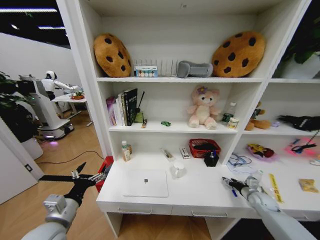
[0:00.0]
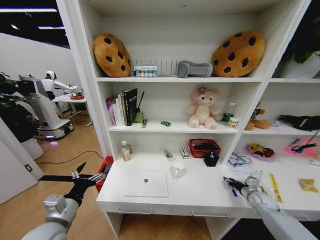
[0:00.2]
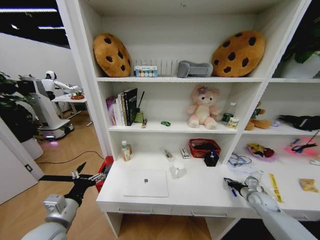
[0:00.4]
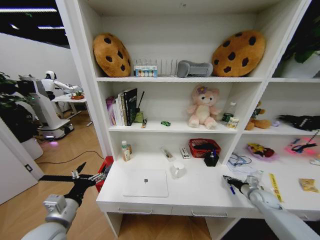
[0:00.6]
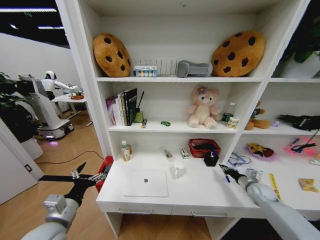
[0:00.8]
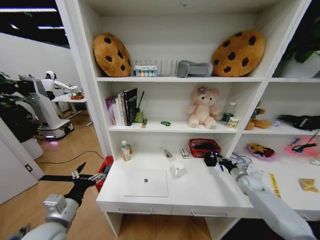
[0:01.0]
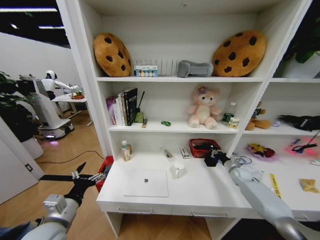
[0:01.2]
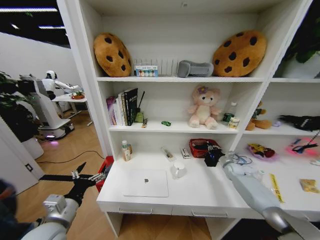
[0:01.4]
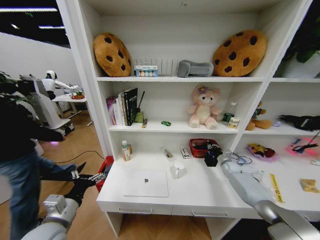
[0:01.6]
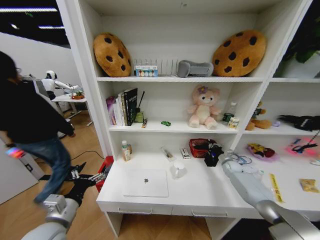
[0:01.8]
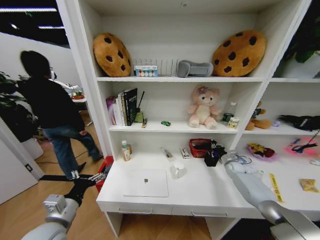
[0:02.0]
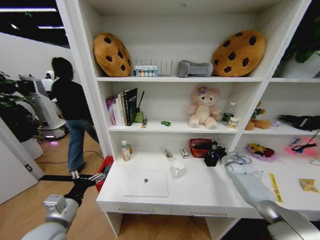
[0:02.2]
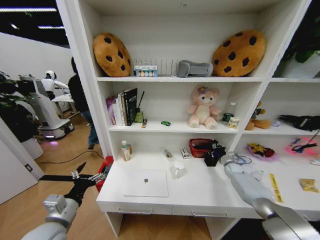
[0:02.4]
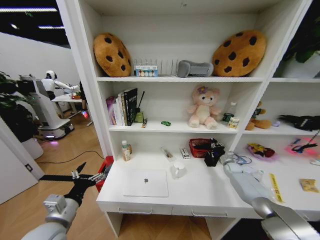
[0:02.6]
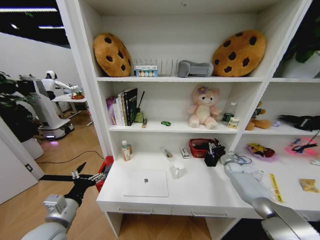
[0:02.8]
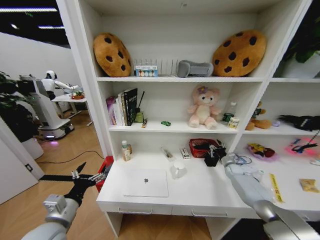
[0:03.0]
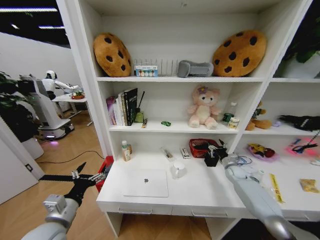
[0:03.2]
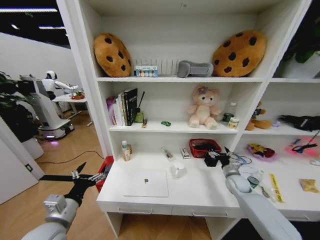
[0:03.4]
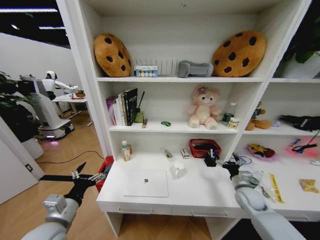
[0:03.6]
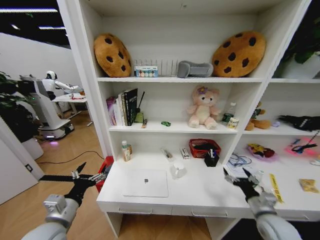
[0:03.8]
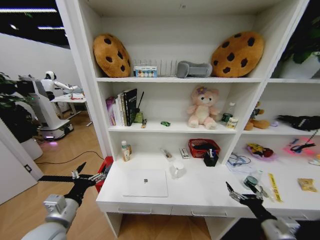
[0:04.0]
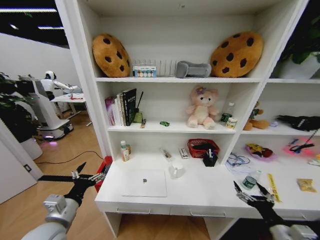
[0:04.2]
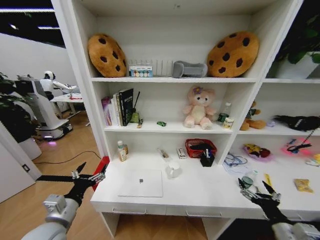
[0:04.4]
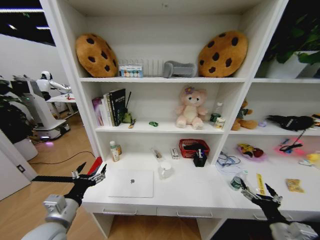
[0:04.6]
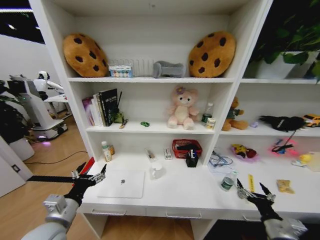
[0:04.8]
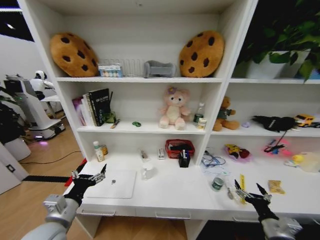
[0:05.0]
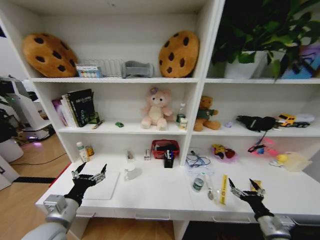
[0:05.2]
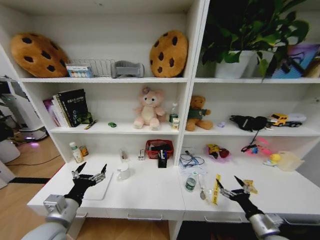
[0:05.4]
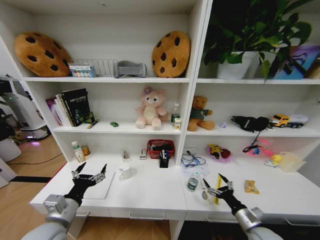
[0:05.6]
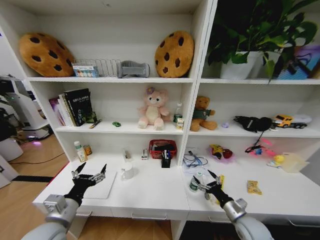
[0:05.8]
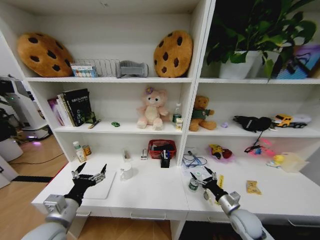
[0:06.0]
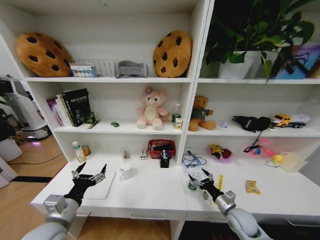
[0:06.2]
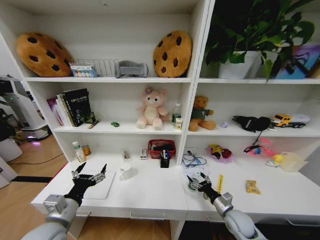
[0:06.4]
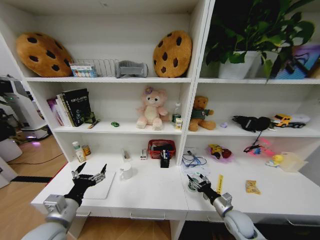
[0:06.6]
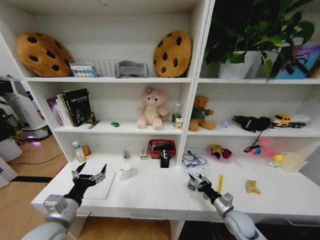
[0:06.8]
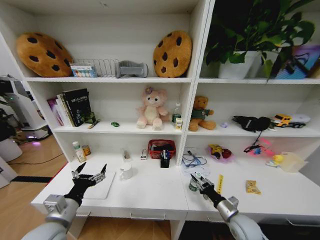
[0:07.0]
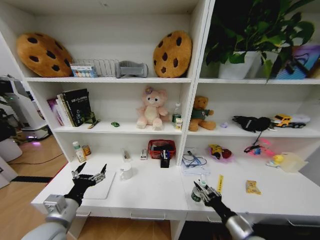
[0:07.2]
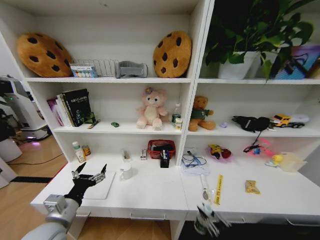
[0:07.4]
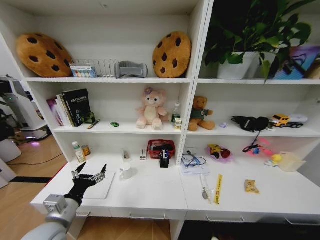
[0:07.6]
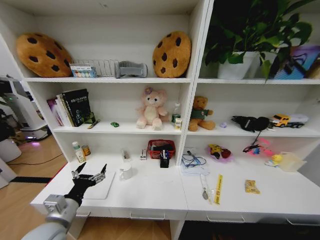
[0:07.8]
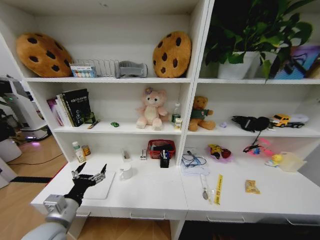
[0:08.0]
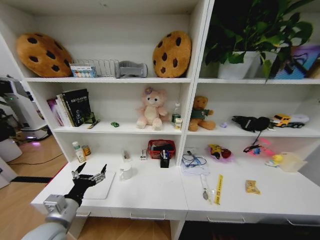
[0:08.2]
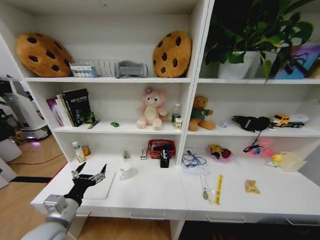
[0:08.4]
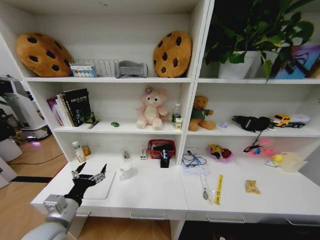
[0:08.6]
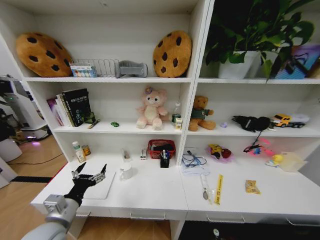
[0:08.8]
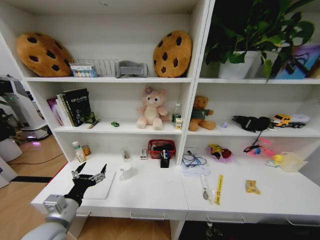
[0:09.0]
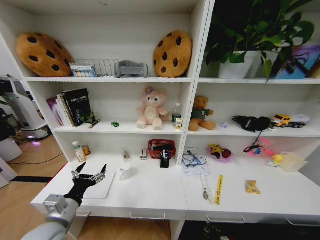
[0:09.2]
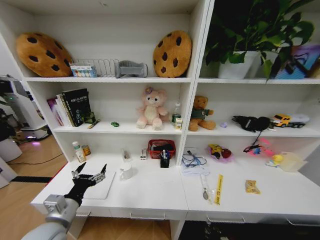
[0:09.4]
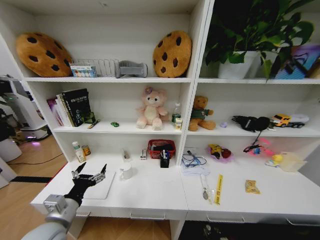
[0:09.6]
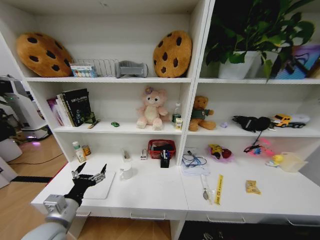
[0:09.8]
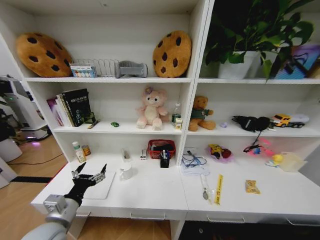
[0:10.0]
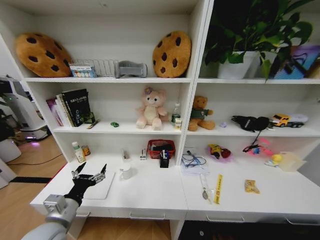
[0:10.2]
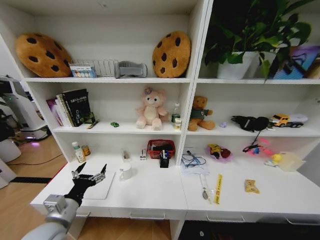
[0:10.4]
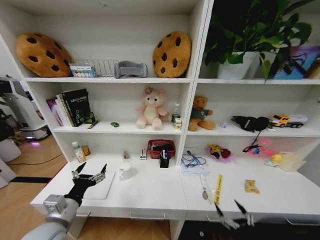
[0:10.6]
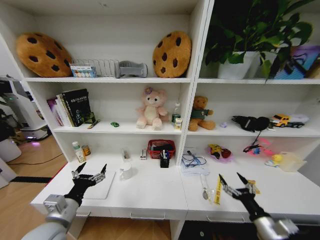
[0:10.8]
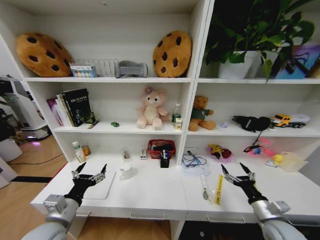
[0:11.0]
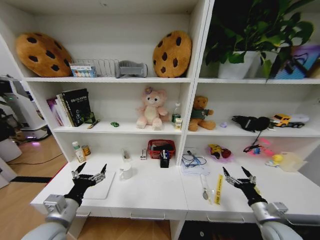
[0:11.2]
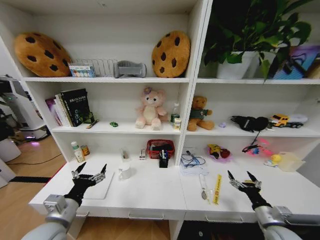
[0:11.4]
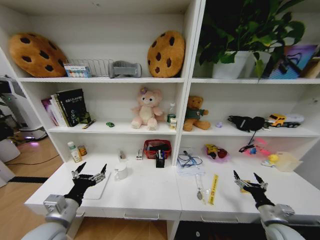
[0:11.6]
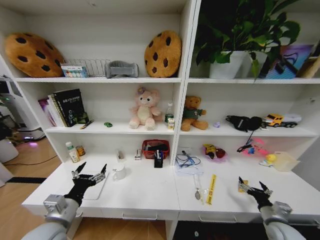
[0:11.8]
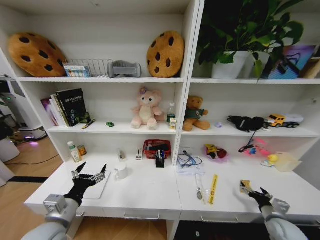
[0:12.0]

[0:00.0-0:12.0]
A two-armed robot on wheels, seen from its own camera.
Task of the whole recording: Organize the objects on the table.
0:00.0 to 0:01.6: The right gripper goes some 20 cm forward, and closes up.
0:01.6 to 0:03.0: The right gripper opens.
0:03.0 to 0:04.4: The right gripper moves backward, about 40 cm, and opens.
0:04.4 to 0:06.0: The right gripper travels forward, downward and to the left by roughly 15 cm.
0:06.0 to 0:07.6: The right gripper travels backward by some 30 cm, and closes up.
0:07.6 to 0:09.0: The right gripper moves downward and forward, approximately 40 cm.
0:09.0 to 0:10.4: The right gripper goes roughly 25 cm upward and backward, and opens up.
0:10.4 to 0:12.0: The right gripper shifts some 25 cm forward and to the right.

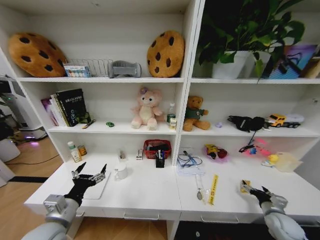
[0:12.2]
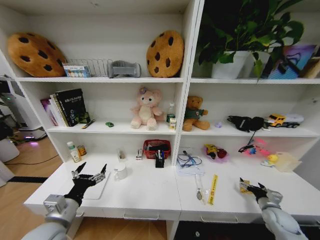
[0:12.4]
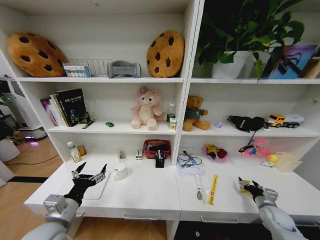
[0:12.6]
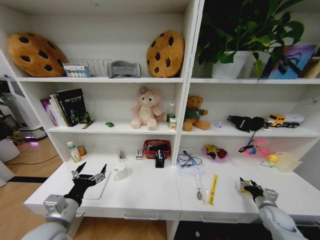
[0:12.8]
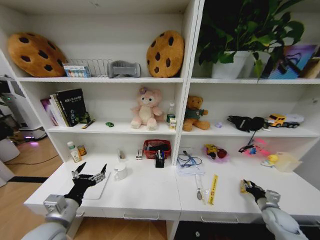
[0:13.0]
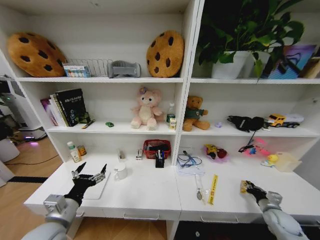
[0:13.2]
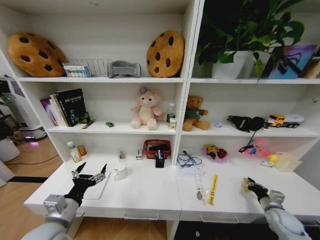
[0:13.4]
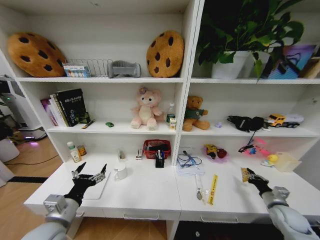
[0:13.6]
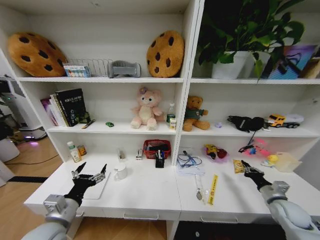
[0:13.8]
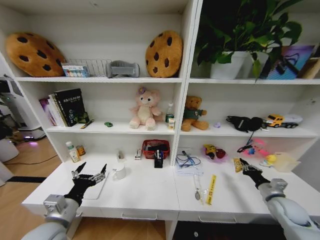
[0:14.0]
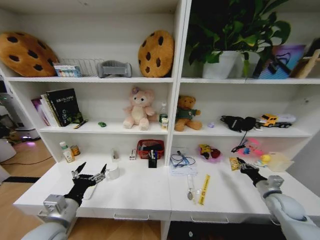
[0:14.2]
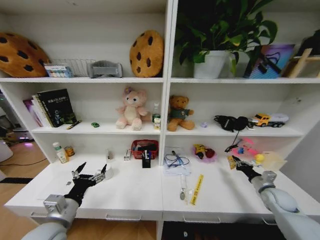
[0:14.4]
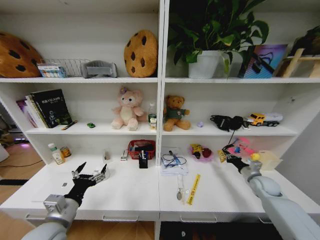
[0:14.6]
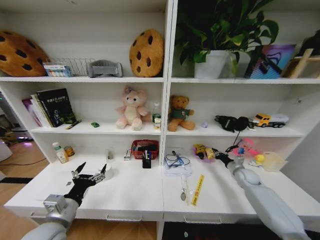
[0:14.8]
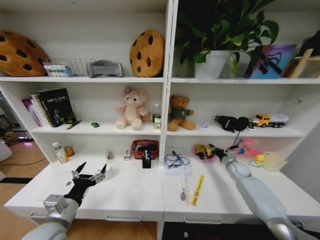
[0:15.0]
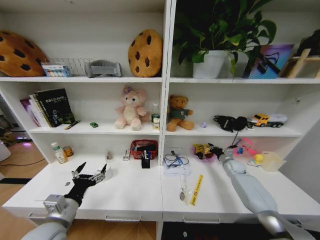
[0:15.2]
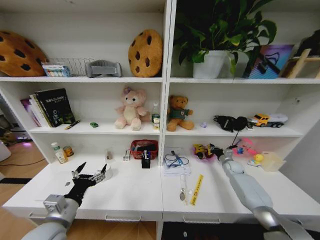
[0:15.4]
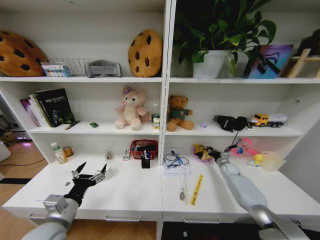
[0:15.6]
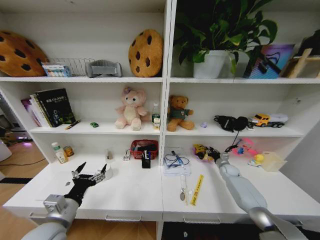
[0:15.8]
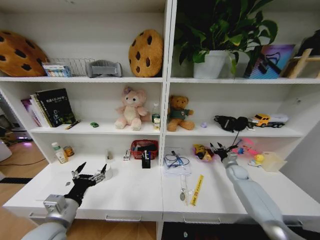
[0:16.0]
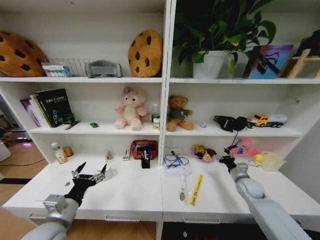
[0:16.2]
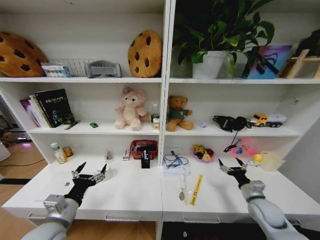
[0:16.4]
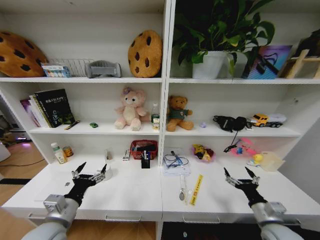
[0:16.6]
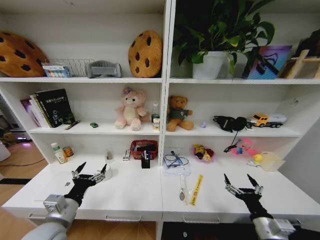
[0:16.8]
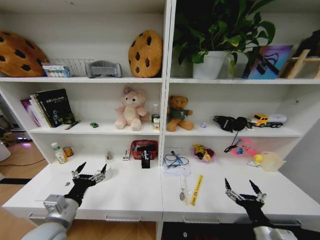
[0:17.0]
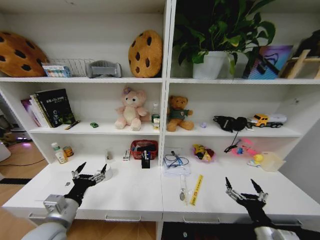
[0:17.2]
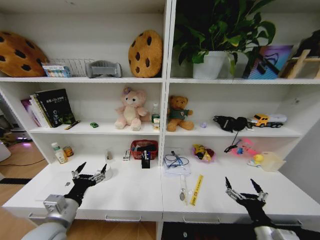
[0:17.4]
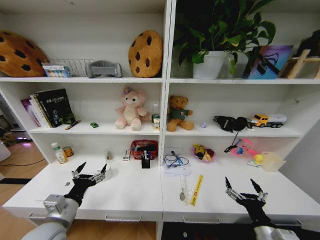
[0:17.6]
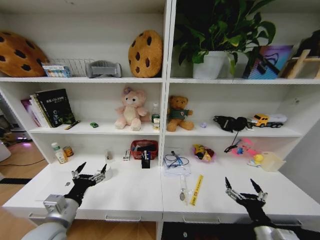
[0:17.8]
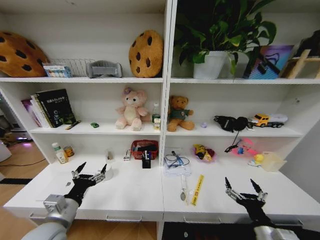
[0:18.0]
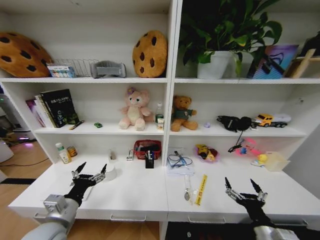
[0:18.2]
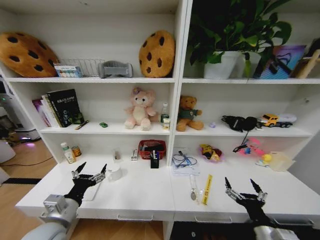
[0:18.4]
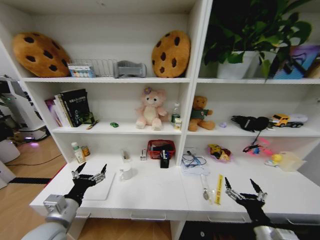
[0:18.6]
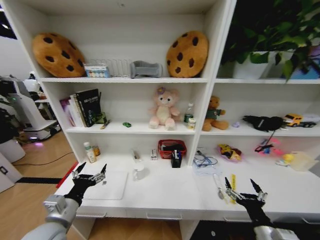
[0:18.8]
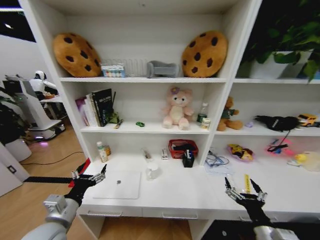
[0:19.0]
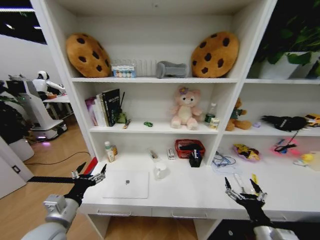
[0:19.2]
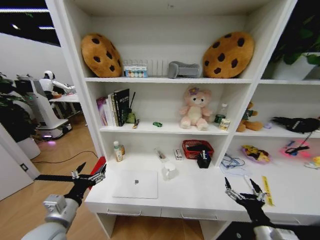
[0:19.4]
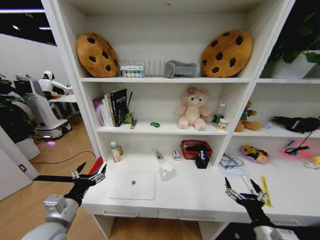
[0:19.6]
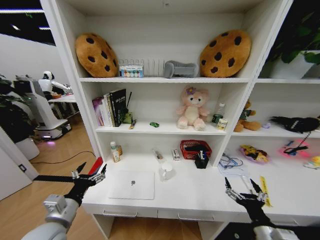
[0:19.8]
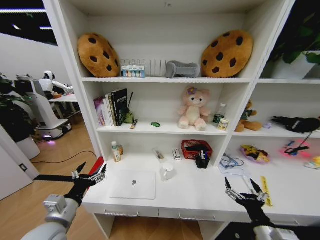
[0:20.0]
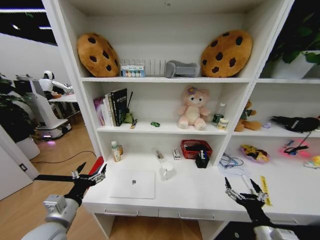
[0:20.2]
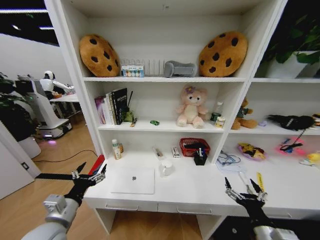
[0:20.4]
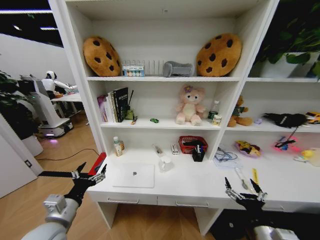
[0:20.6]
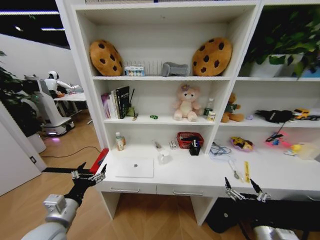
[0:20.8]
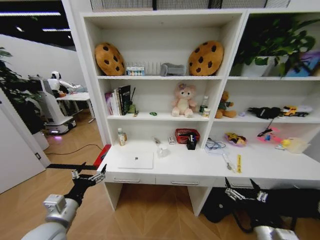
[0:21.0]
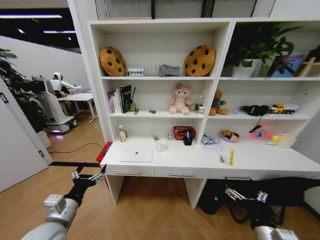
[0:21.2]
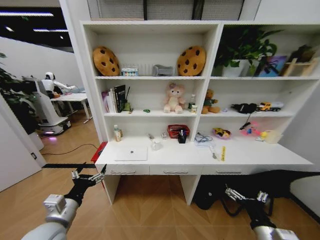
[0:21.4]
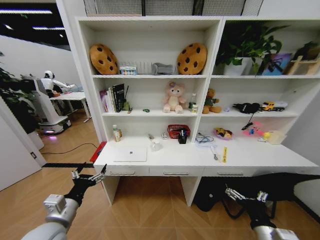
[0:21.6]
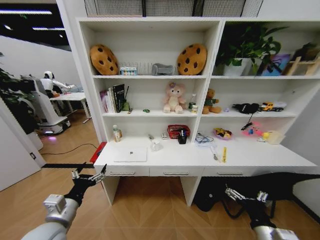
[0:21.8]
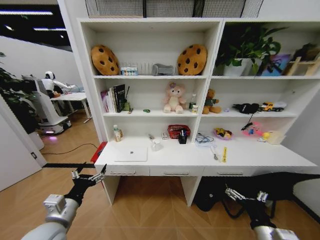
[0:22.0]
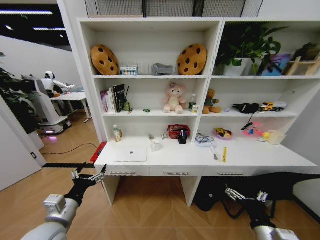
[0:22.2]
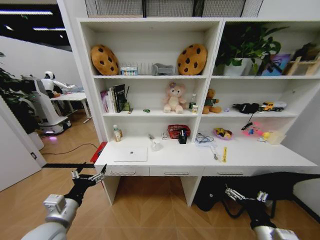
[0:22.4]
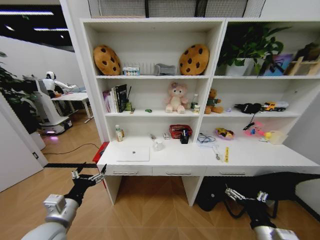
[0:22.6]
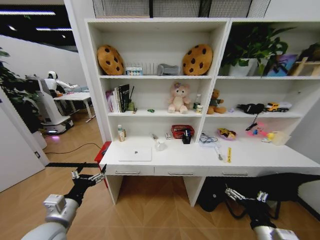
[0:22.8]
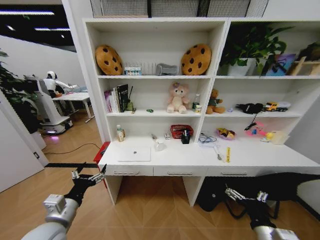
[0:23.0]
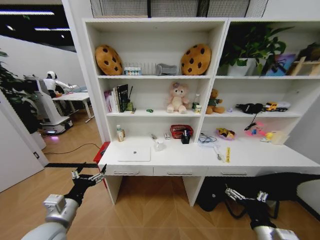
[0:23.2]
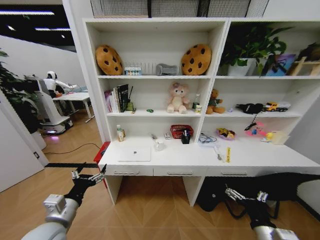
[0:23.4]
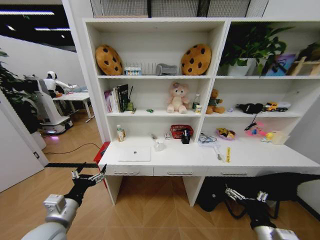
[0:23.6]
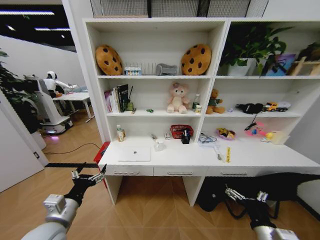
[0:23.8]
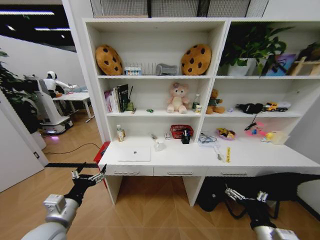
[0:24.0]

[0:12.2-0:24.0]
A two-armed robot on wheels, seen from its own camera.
Task of the whole recording: Organize the objects on the table.
0:12.2 to 0:13.6: The right gripper closes.
0:13.6 to 0:15.2: The right gripper heads forward, covering about 25 cm.
0:15.2 to 0:16.6: The right gripper moves backward, some 30 cm, and opens up.
0:16.6 to 0:18.2: The right gripper shifts roughly 10 cm backward and to the left.
0:22.6 to 0:24.0: The two grippers keep their place.
